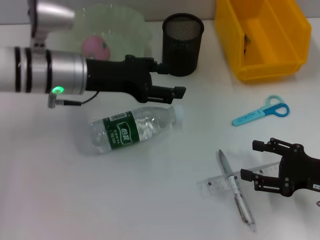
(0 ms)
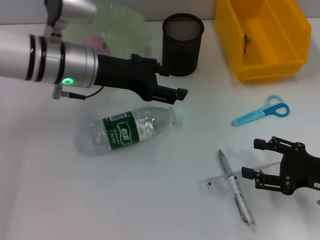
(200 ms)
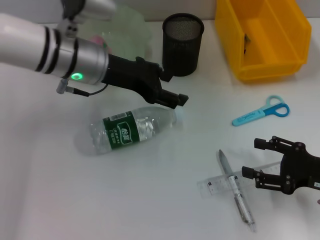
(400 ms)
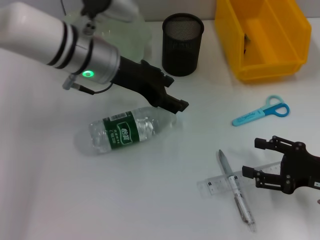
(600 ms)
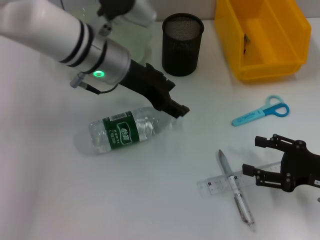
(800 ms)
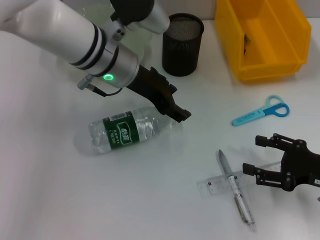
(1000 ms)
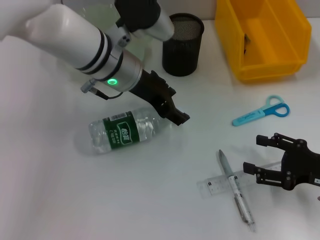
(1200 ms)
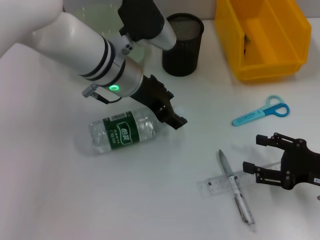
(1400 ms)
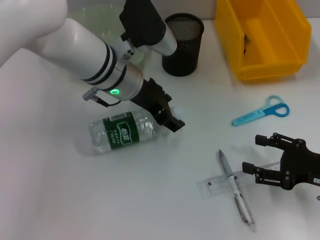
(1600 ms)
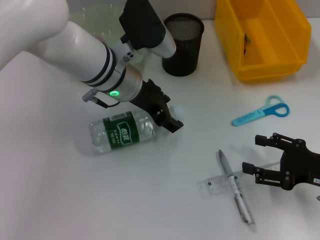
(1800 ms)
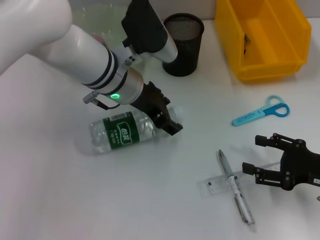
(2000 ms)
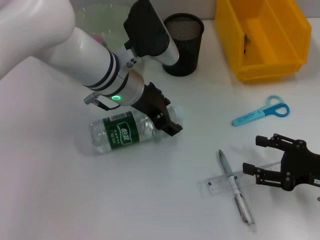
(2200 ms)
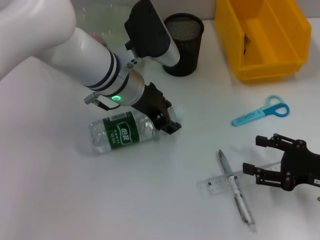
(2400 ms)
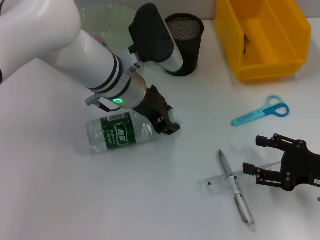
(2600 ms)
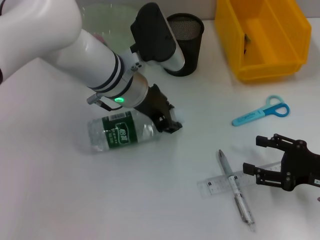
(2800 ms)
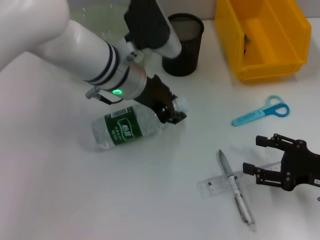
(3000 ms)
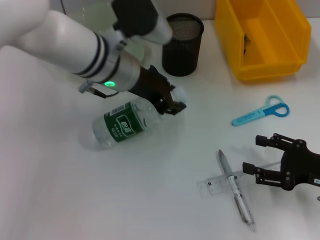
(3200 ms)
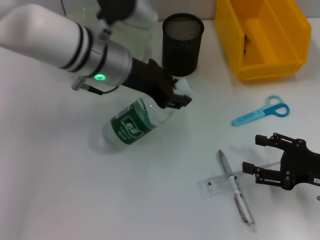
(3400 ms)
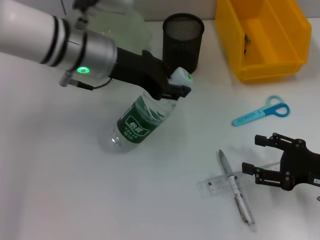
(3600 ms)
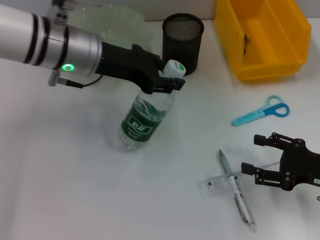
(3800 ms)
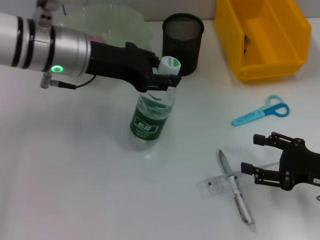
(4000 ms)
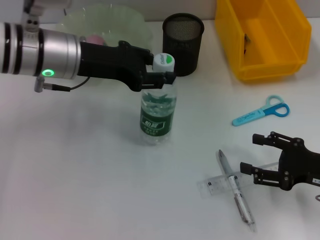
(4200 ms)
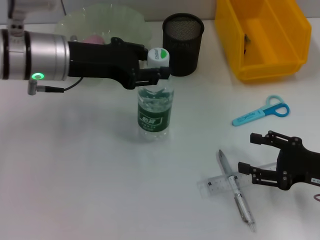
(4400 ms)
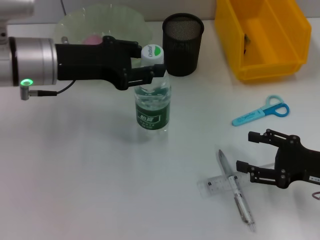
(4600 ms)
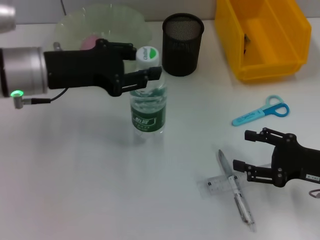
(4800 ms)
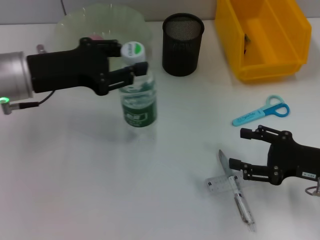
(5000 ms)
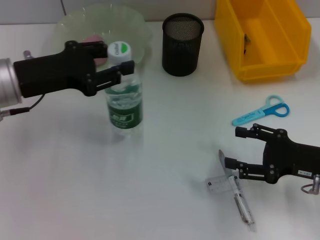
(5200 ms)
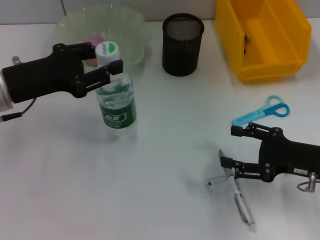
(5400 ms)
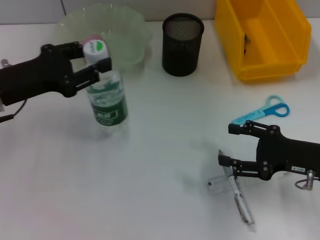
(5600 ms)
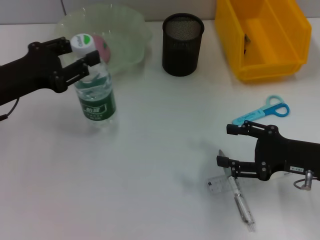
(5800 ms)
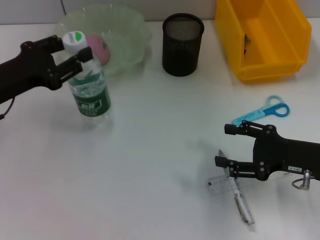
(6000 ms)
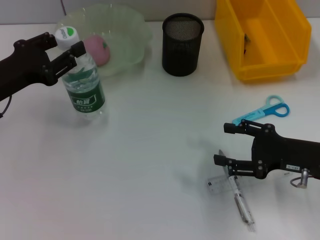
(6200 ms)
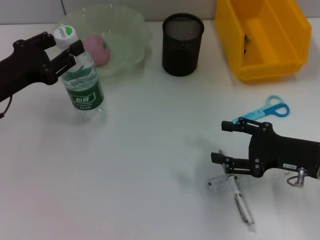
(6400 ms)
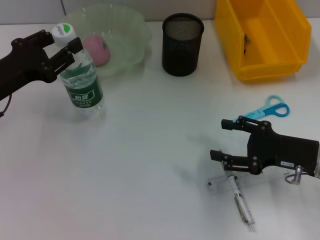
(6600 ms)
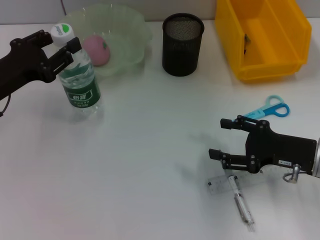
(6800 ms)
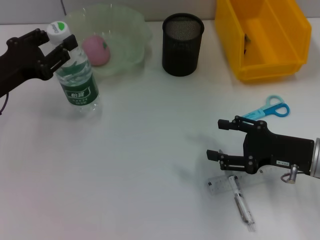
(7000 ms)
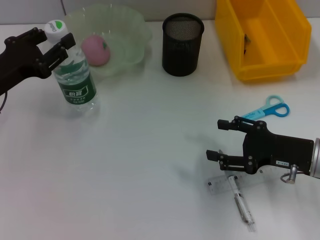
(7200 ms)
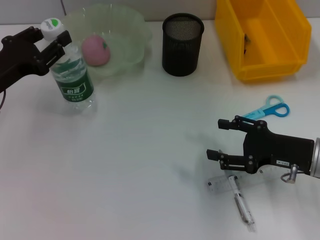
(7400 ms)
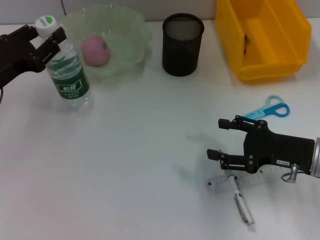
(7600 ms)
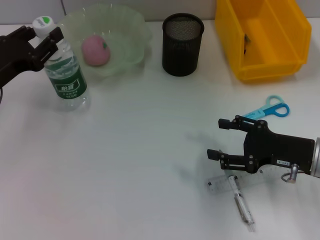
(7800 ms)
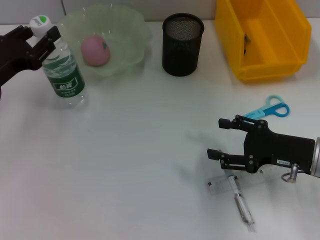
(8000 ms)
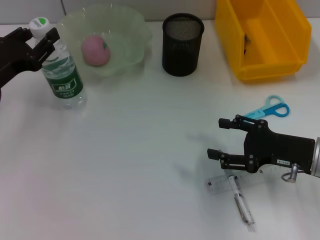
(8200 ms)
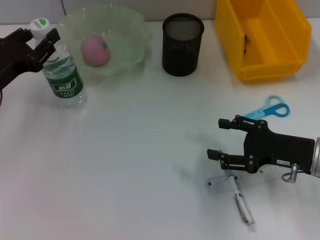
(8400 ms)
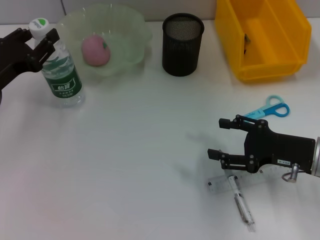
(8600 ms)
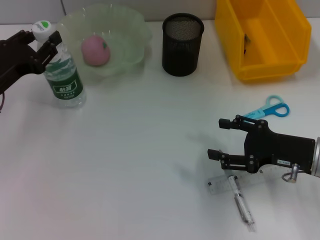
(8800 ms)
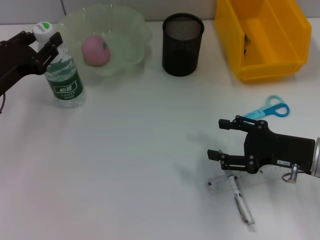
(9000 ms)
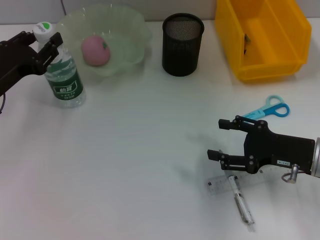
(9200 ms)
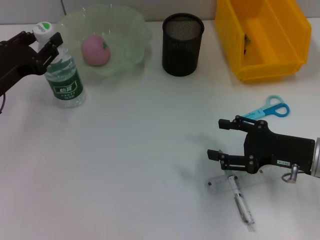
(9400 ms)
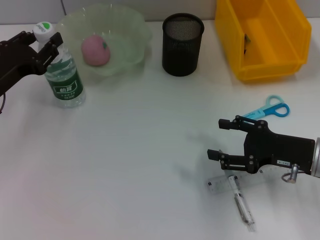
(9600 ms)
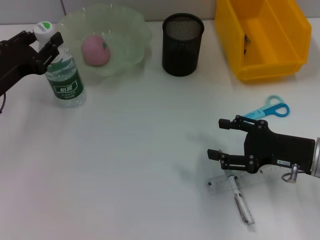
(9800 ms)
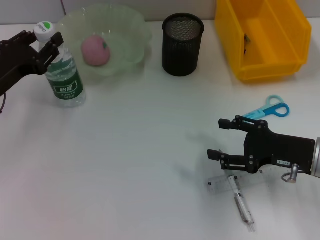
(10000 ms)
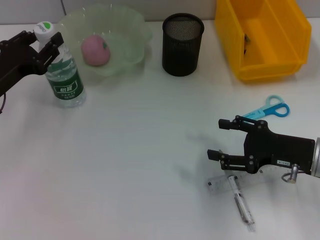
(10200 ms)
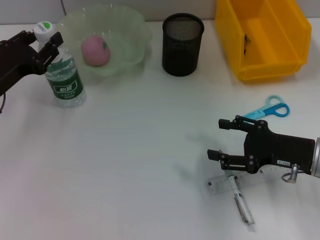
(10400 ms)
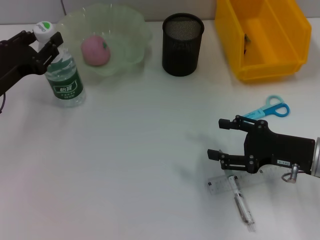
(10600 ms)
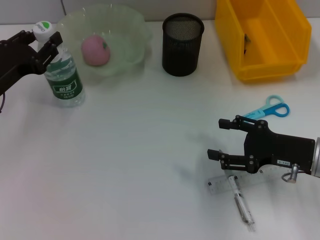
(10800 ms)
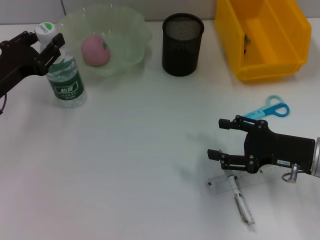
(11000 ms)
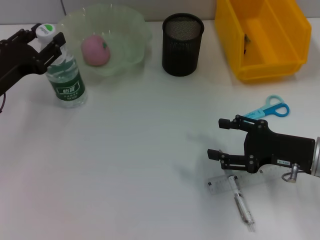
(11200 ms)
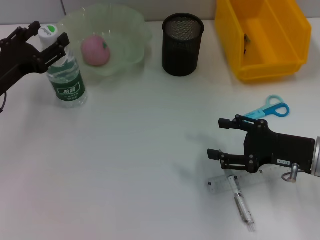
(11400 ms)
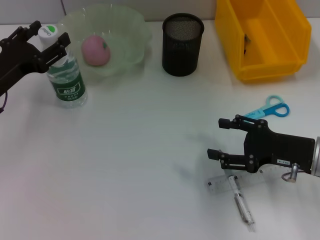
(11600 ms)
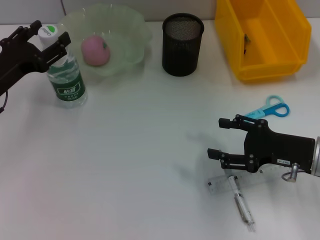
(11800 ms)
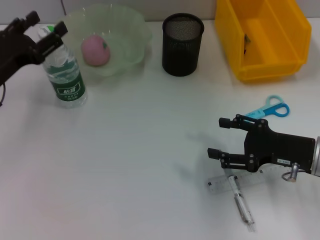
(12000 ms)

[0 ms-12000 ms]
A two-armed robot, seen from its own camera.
Step, 0 ms to 2400 ms: Grab the water bottle with the left hand.
Step, 2600 ms to 11600 ms: Place the water bottle on the table with the left hand.
0 ms to 1600 ms: The left gripper shifts roughly 10 cm to the right.
1600 ms to 3000 ms: There are only small adjustments of the grippers.
3000 ms to 4400 ms: The left gripper heads to the left, covering some 10 cm.
4400 ms to 6000 ms: The left gripper shifts approximately 15 cm to the left, backward and downward.
6000 ms to 9000 ms: The grippers make only small movements.
9000 ms to 10400 ms: Both grippers stay put.
10400 ms to 12000 ms: The left gripper opens.

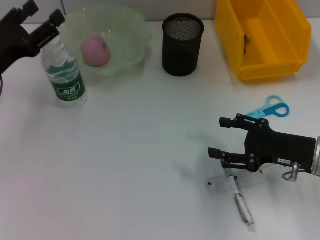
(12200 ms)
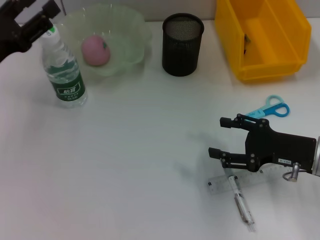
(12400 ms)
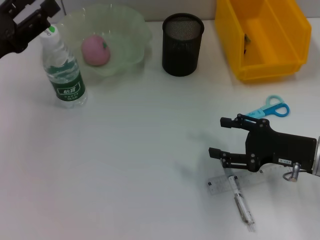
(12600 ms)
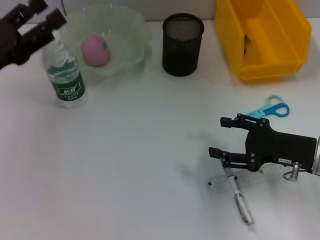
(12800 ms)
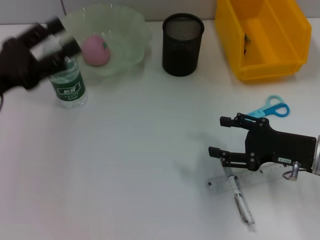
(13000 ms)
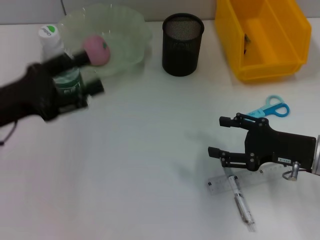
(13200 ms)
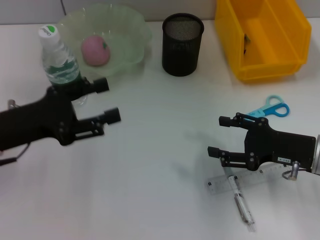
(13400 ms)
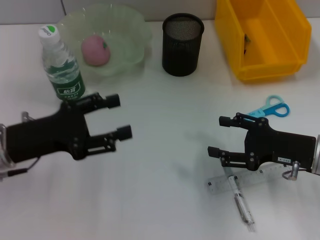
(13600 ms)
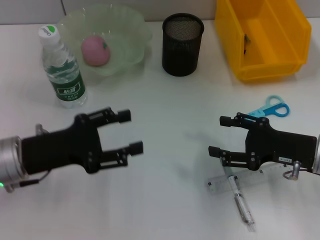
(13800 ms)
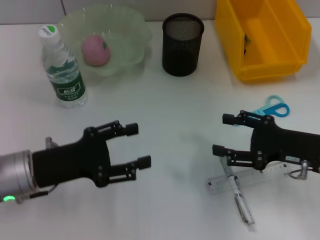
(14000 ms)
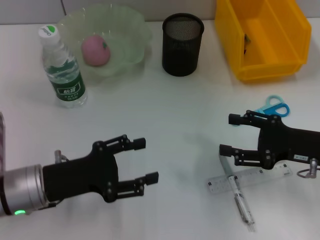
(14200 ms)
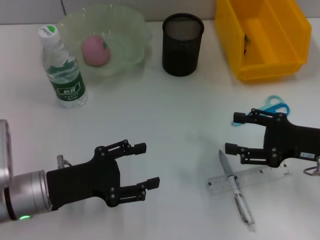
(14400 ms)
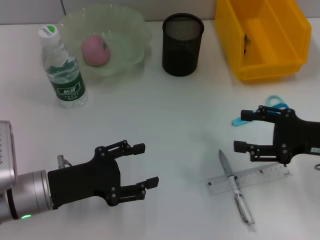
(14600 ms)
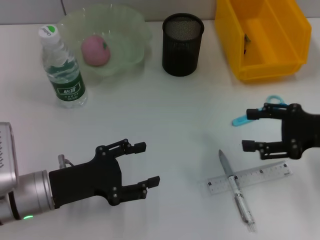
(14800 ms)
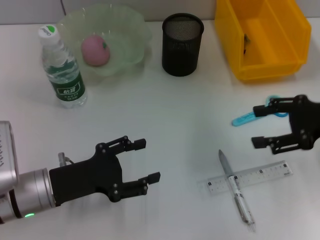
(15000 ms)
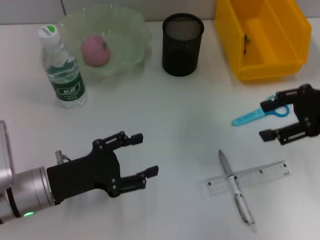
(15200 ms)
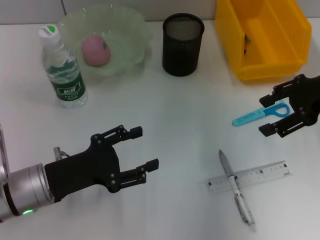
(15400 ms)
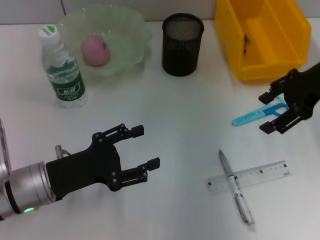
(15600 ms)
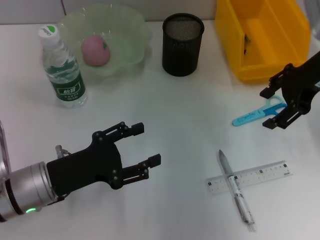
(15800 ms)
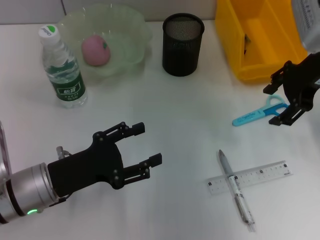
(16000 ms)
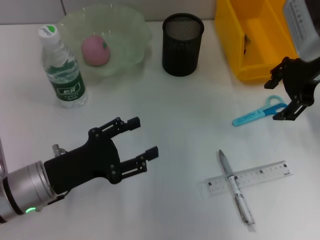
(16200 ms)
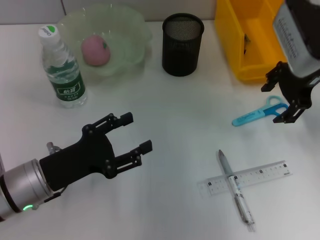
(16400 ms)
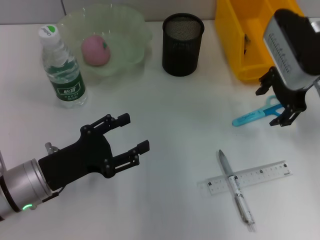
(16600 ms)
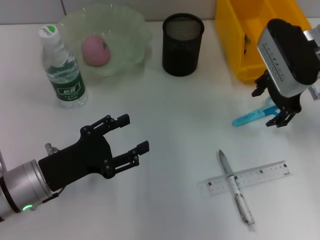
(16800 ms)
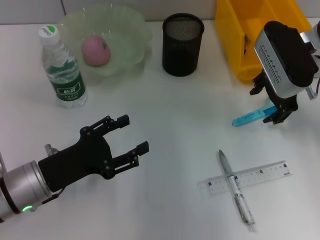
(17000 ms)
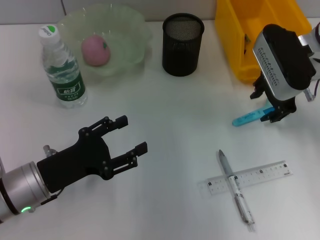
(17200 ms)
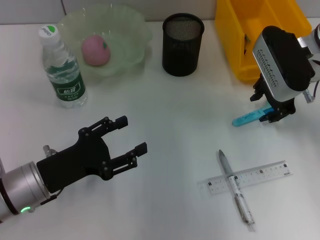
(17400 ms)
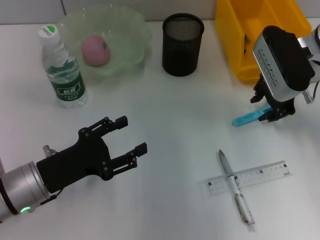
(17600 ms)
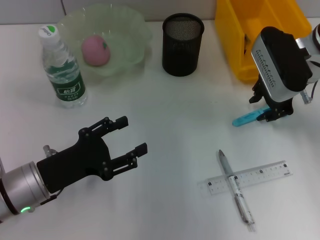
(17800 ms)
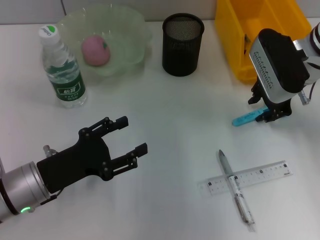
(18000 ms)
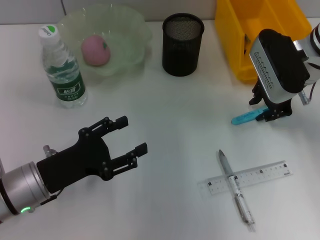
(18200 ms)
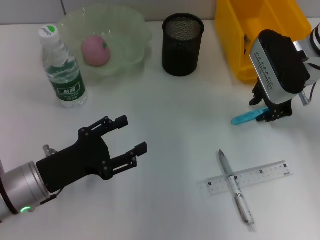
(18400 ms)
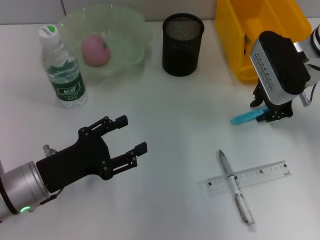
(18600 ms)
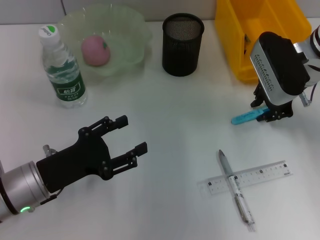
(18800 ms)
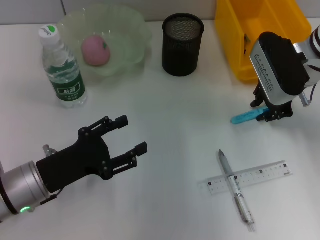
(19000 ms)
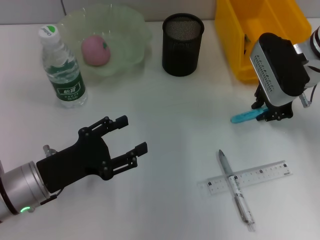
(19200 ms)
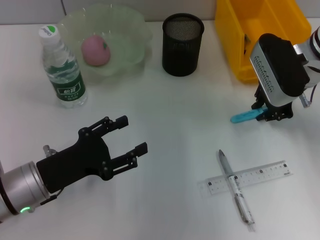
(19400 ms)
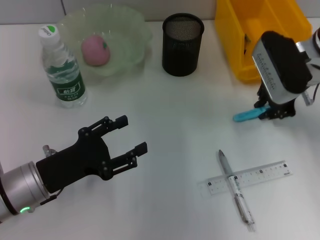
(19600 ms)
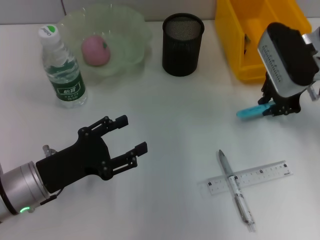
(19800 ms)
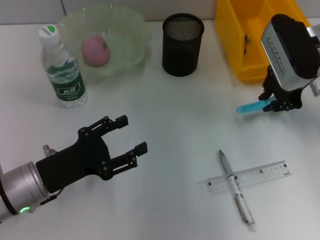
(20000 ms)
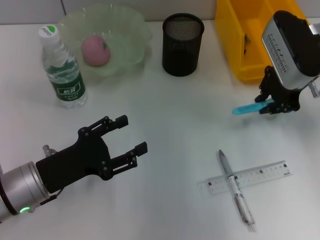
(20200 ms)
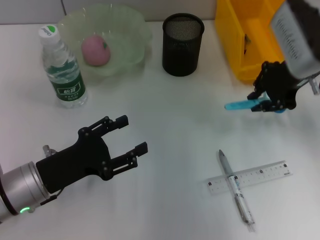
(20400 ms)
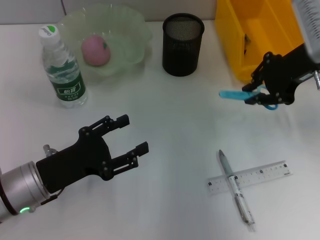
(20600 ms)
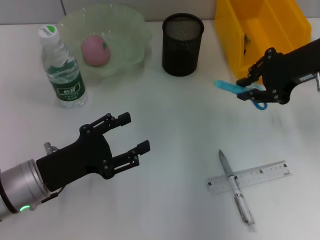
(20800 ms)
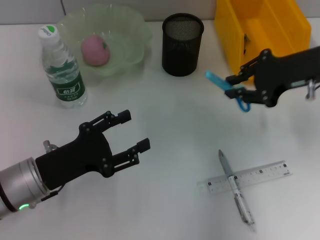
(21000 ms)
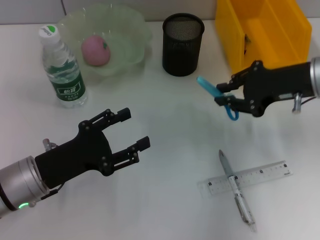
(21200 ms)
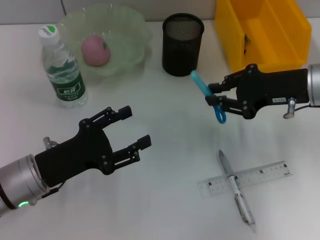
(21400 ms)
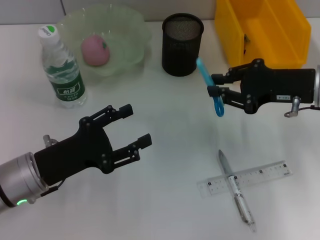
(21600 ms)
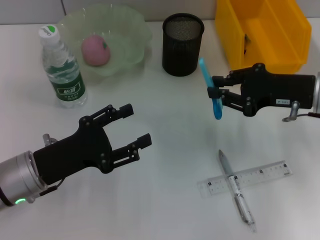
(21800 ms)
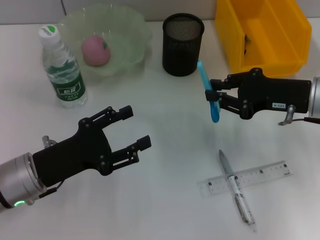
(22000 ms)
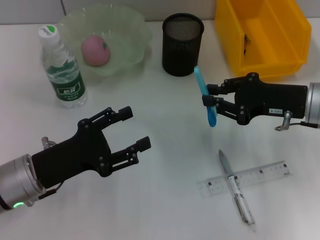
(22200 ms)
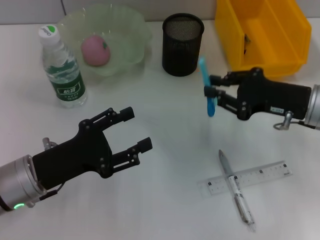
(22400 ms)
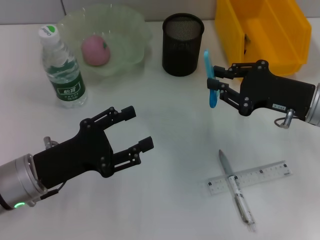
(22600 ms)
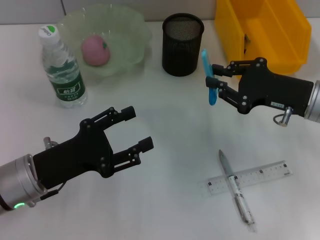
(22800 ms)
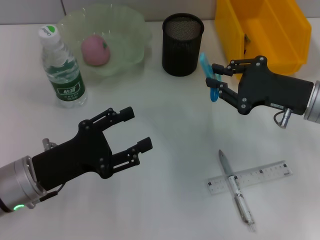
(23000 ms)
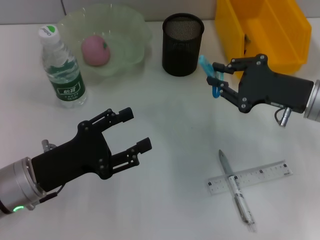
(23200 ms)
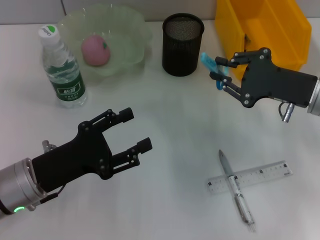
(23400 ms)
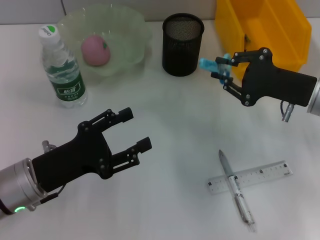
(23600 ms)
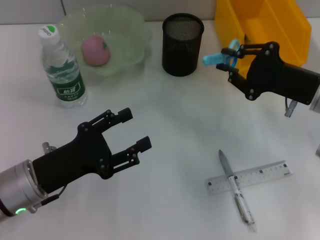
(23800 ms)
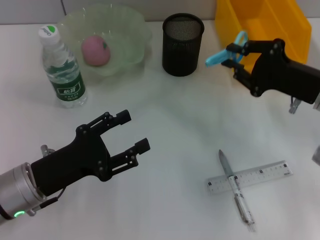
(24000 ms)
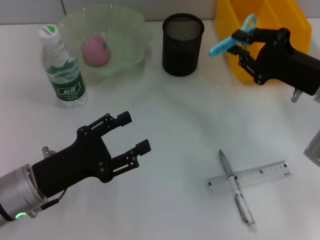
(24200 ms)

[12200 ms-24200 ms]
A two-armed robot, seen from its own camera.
Step, 12200 ms to 19000 ms: Grab the blue scissors with the right hand.
12200 ms to 13800 ms: The left gripper moves backward, about 5 cm.
13800 ms to 15200 ms: The left gripper shifts by some 5 cm. Meanwhile the right gripper travels upward and forward by some 15 cm.
15200 ms to 16600 ms: The right gripper travels to the left and forward by approximately 10 cm.
16600 ms to 18200 ms: The right gripper closes its fingers.
18200 ms to 19800 ms: The grippers move only a little.
19800 ms to 21200 ms: The right gripper travels backward by approximately 5 cm.
21200 ms to 22600 ms: The right gripper heads downward, covering some 5 cm.
